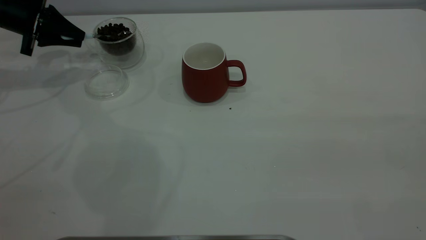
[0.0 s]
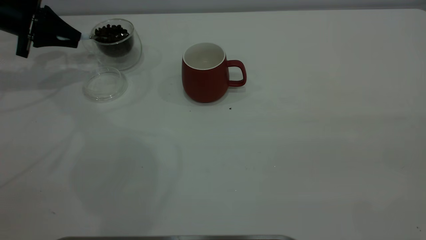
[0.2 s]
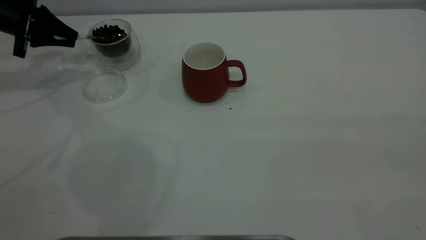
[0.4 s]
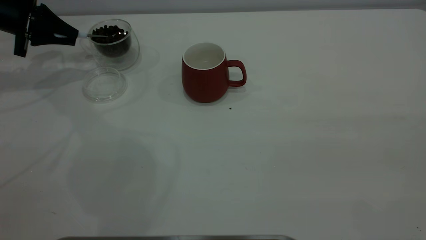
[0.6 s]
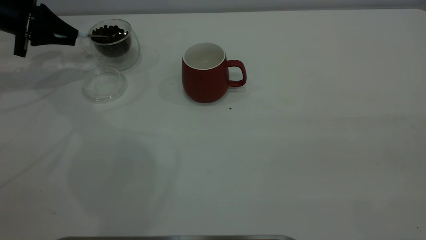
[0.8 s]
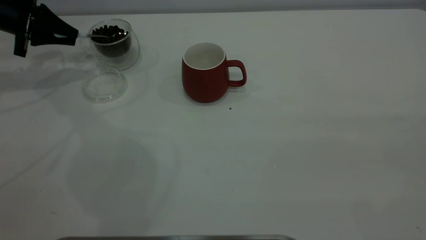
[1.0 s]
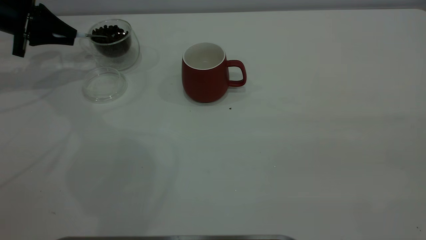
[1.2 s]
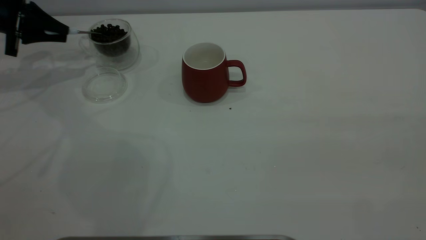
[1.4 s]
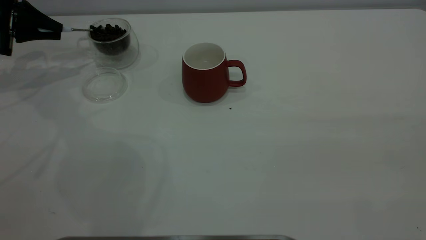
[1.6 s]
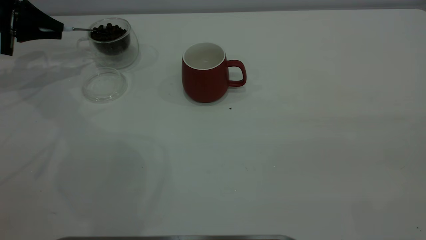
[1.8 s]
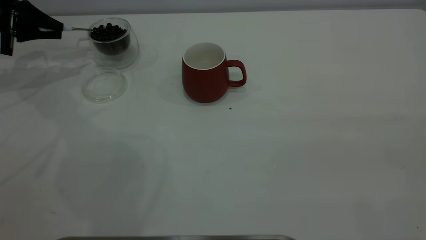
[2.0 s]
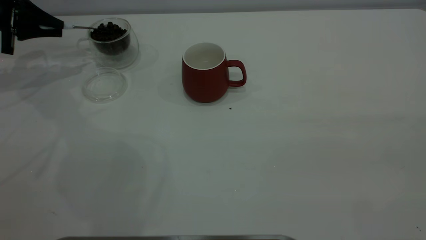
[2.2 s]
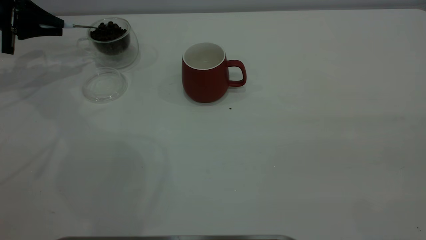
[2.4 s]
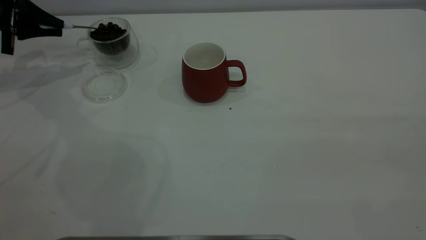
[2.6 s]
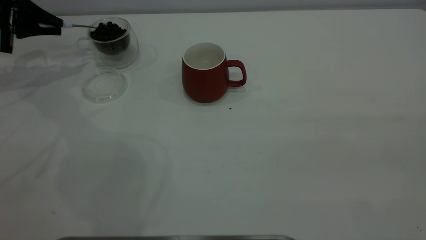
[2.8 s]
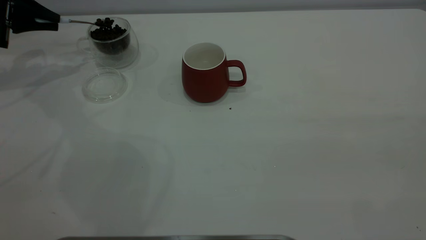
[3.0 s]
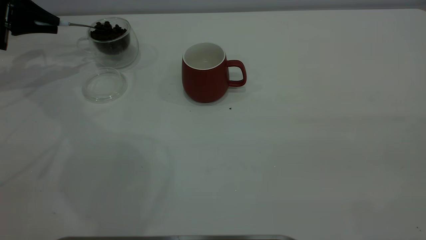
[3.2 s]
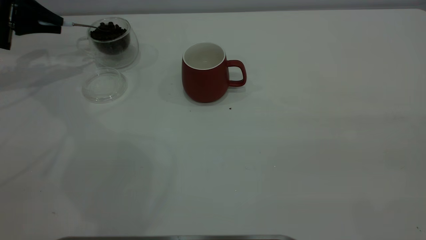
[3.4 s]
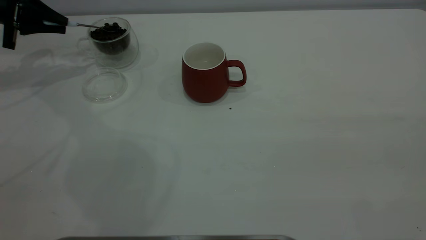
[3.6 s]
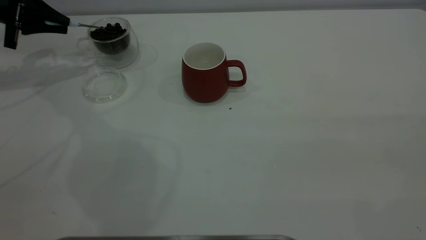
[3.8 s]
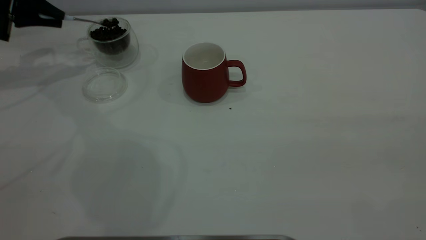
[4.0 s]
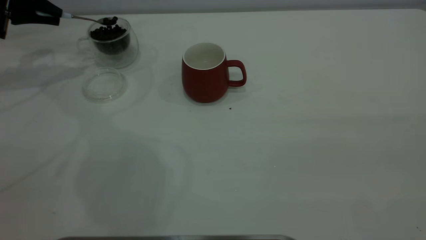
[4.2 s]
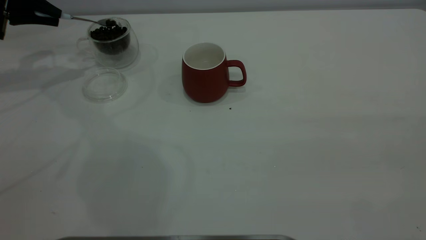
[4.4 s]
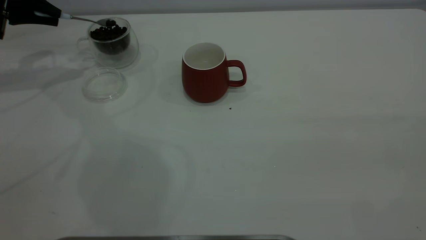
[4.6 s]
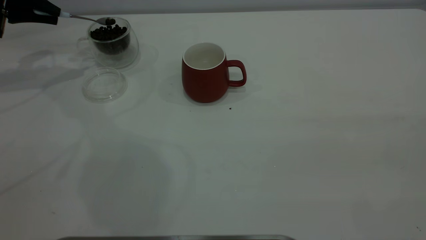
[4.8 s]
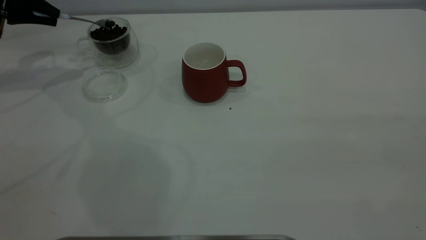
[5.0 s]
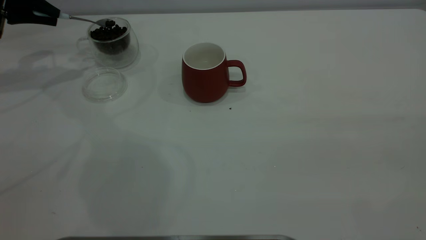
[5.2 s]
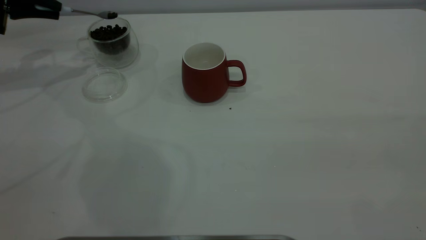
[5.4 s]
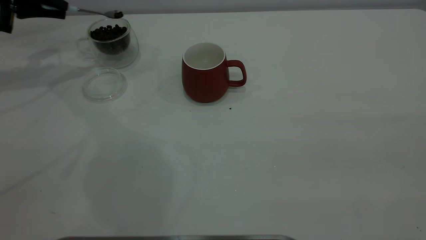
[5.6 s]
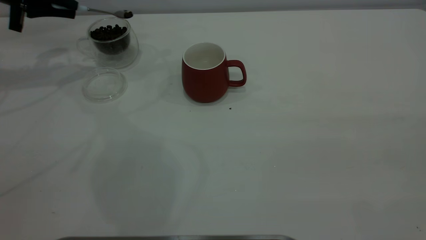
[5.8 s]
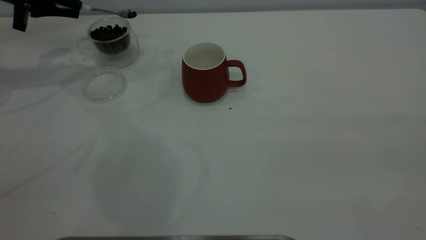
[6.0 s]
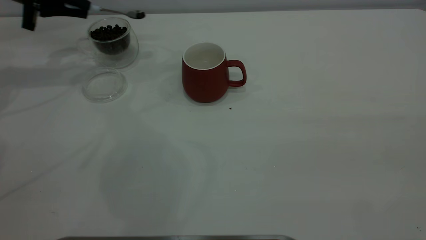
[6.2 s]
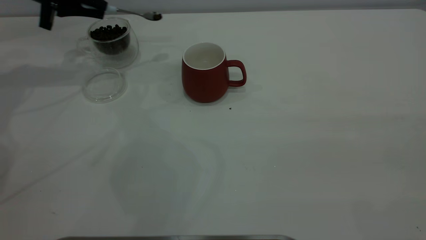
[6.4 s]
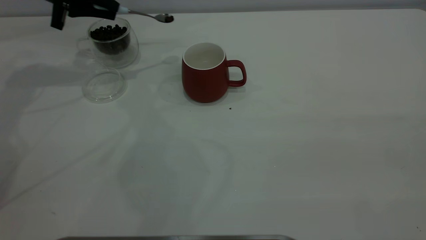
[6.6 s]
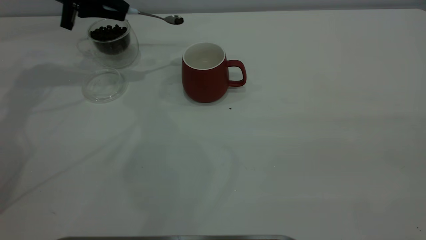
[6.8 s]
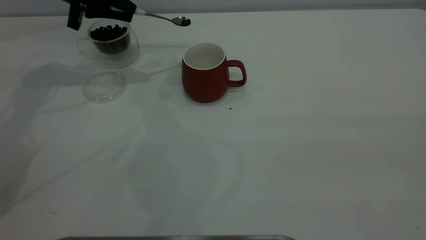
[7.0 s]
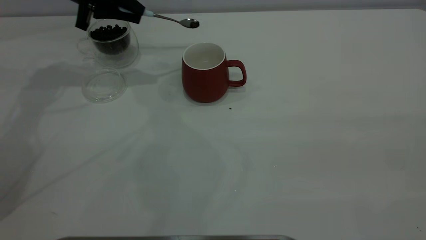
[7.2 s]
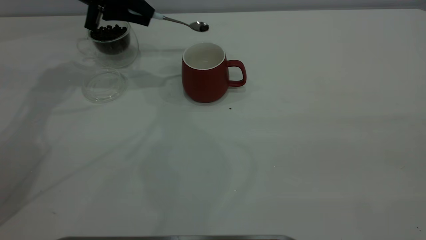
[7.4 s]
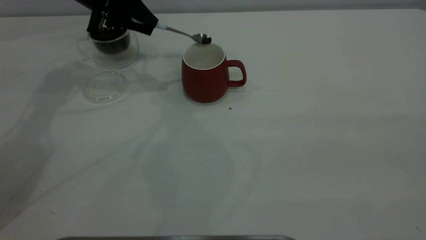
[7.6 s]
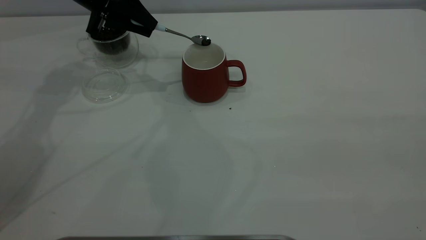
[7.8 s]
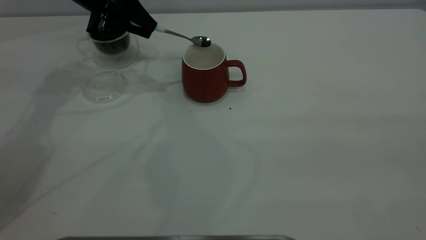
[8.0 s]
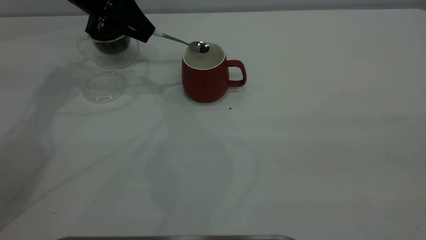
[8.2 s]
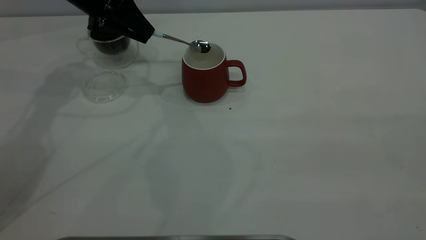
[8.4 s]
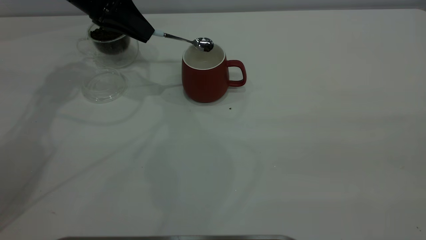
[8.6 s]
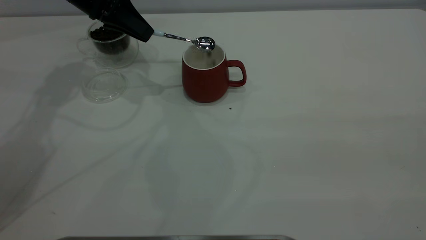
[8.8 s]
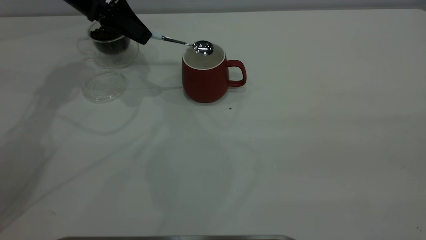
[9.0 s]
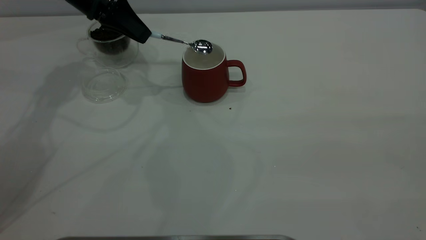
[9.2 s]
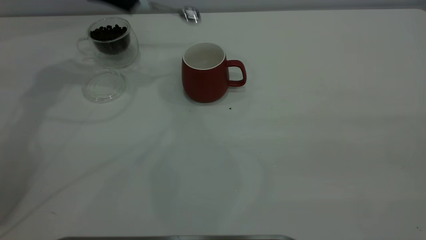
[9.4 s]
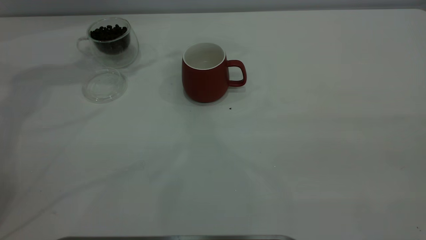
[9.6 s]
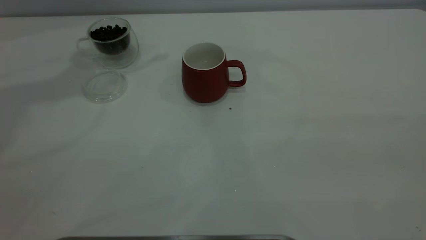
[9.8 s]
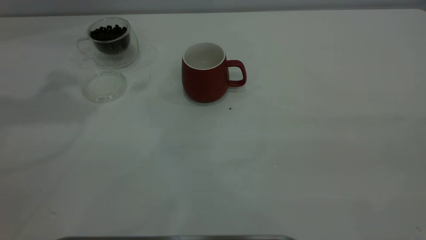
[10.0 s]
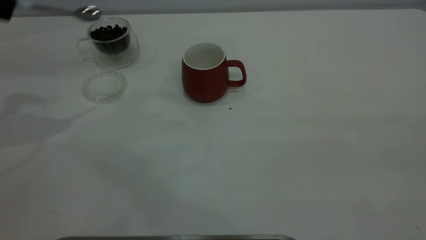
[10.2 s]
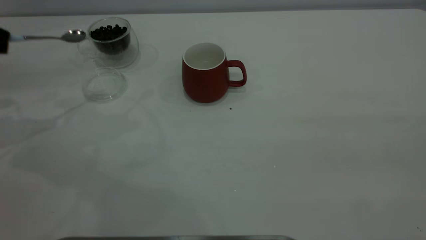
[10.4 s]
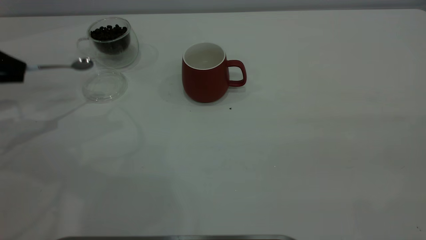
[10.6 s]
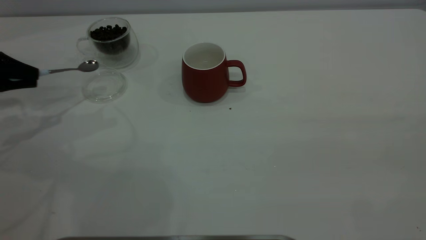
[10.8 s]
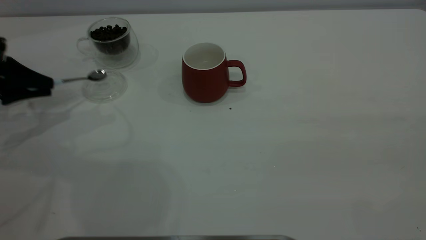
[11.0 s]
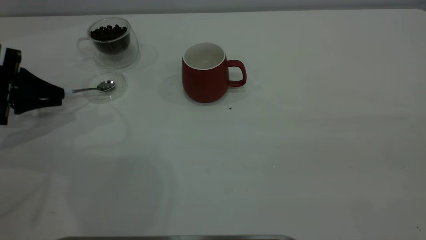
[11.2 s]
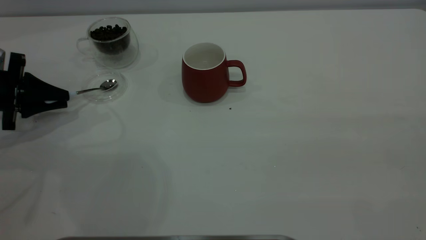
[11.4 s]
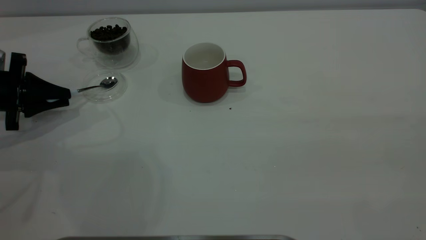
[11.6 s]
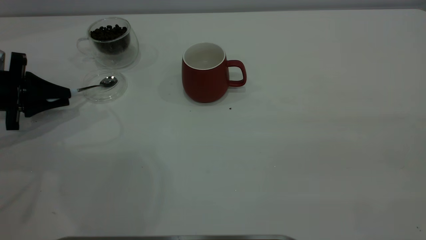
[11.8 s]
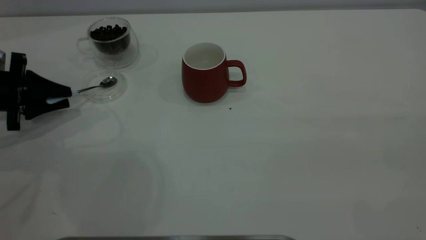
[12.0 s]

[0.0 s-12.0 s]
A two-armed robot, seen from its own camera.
Task of the whole recording: the right gripper place the red cup in the center of the table, the left gripper take the blue spoon from the cup lid and scoop out the coffee beans from the coffee cup and put them into the red cup, the left gripper put the spoon back into the cup lid.
Step, 0.0 to 9.2 s: Scoop a spoonful of beans into the cup.
0.0 to 6.0 s: The grippers move only a little.
6.0 to 7.6 s: The left gripper heads to the right, covering some 15 cm.
9.0 to 10.4 s: The left gripper heads to the left and backward, covering about 25 cm, and moves approximately 25 cm upward and comes back.
10.4 to 12.0 s: The left gripper travels downward by roughly 15 cm, and opens its fingers.

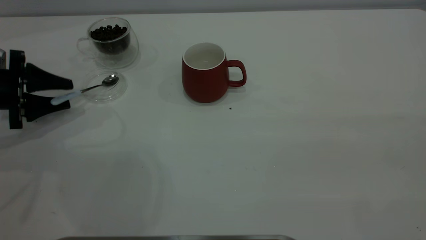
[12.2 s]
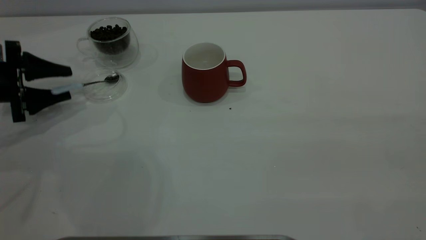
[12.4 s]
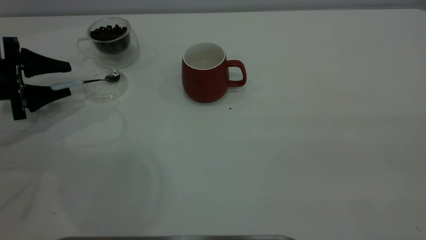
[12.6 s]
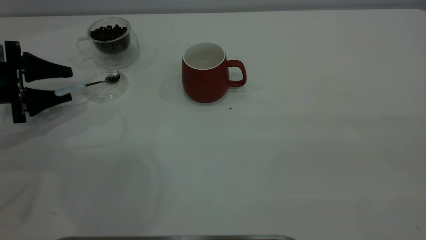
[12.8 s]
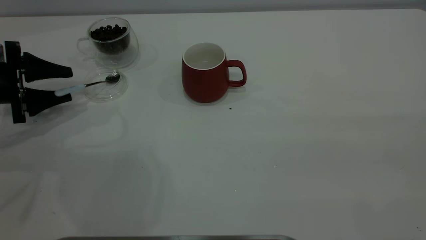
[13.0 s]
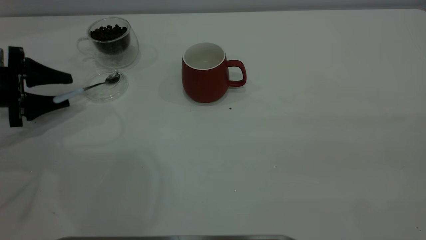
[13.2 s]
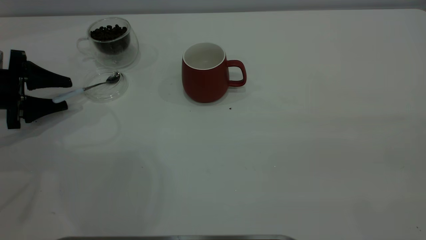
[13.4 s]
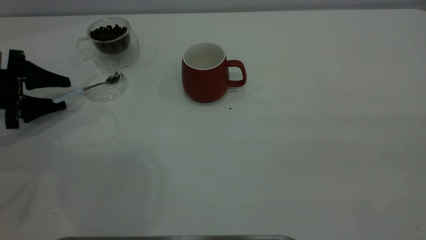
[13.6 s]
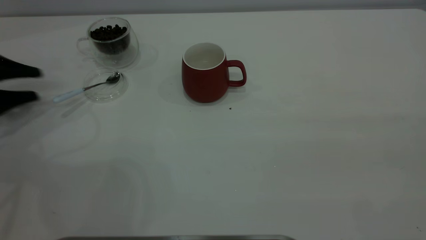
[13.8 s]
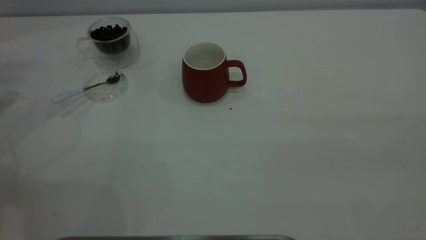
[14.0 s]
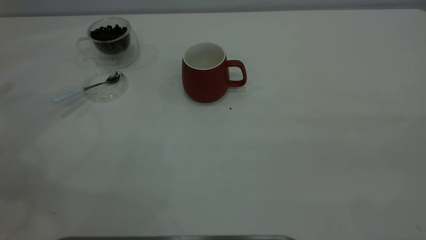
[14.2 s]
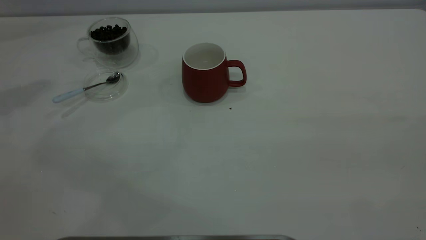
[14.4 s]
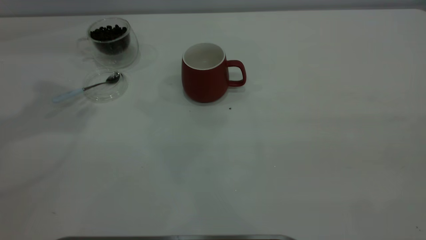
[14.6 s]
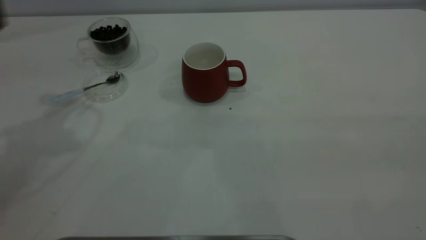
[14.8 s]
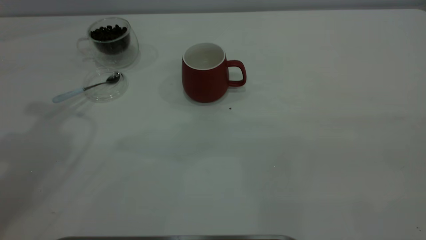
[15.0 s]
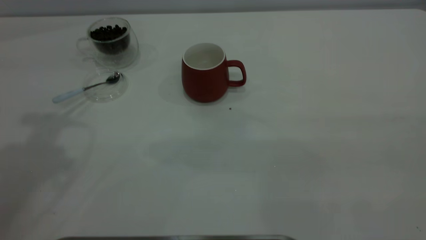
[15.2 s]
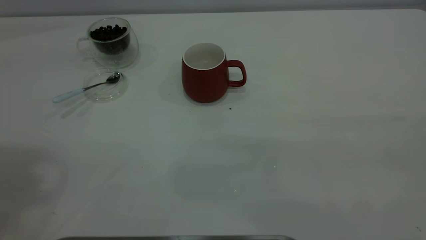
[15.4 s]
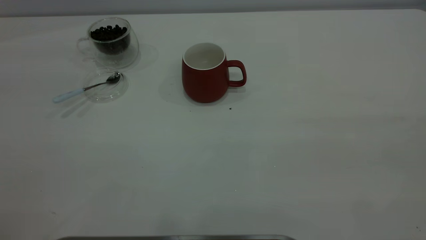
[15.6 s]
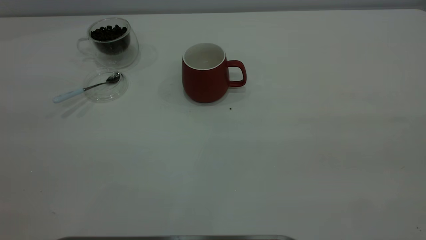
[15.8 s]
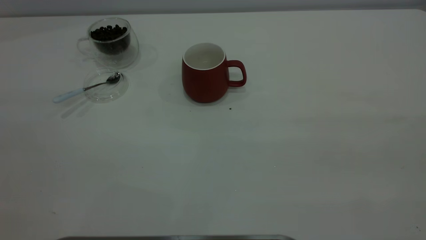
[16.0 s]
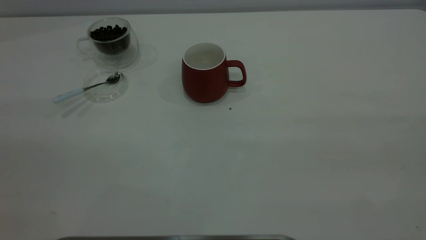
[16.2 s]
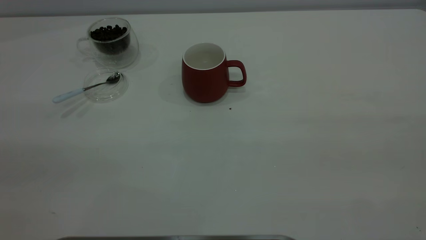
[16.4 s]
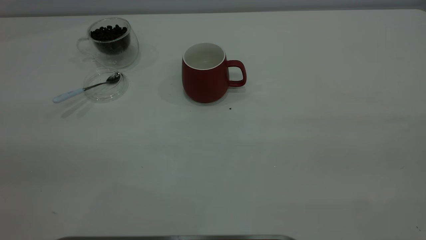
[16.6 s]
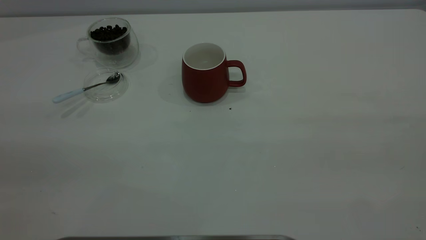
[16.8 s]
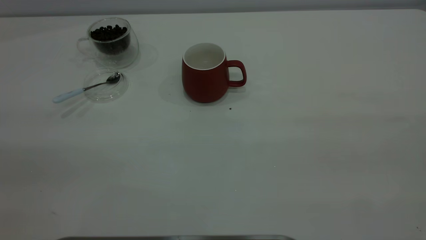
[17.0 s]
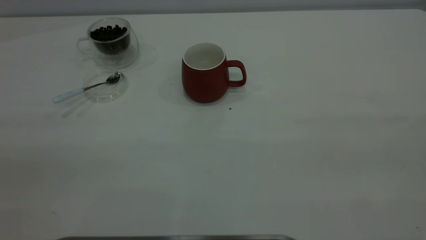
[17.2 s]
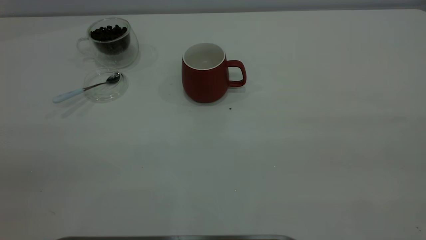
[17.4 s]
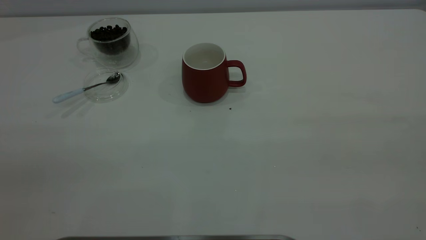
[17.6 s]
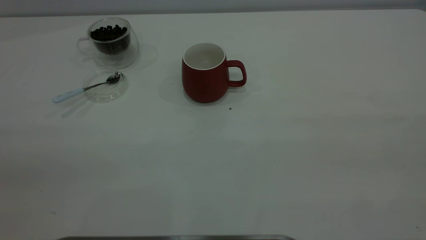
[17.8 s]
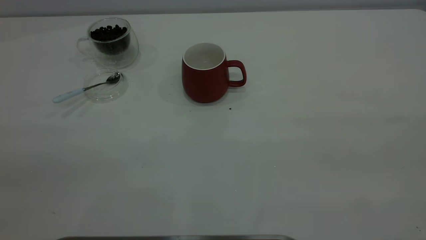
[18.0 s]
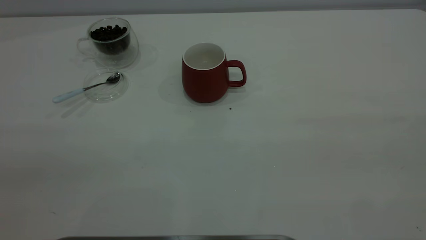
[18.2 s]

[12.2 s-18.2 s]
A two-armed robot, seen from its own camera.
Task of the whole recording: the right gripper place the red cup in the center of the table, the left gripper take the blue spoon from the cup lid and scoop out the coffee beans from the coffee cup and put them into the red cup, the left gripper put the spoon back into the cup lid.
12.2 to 13.8 s: The left gripper moves to the left, roughly 5 cm.
13.8 to 15.2 s: The left gripper moves upward and to the right, about 40 cm.
